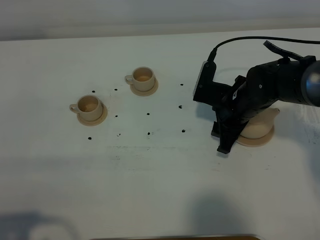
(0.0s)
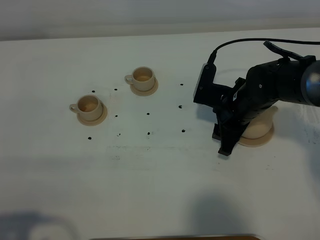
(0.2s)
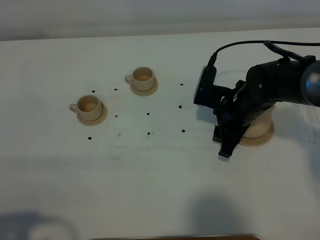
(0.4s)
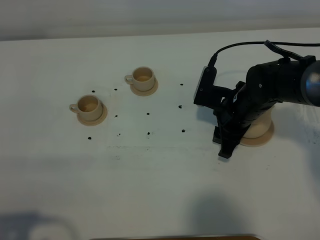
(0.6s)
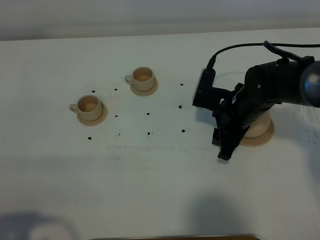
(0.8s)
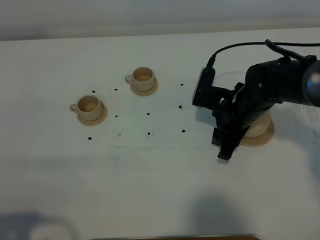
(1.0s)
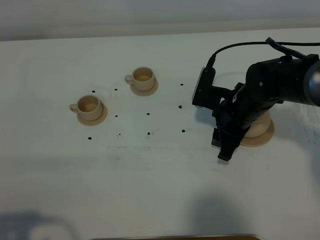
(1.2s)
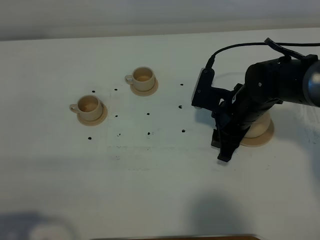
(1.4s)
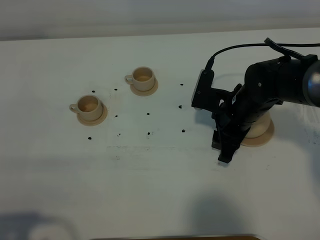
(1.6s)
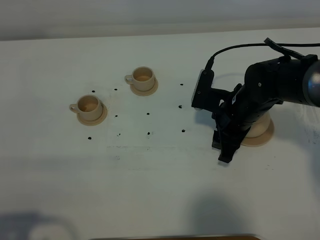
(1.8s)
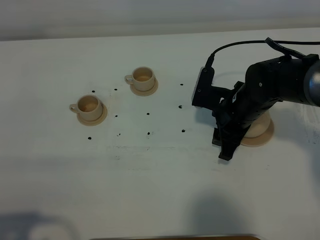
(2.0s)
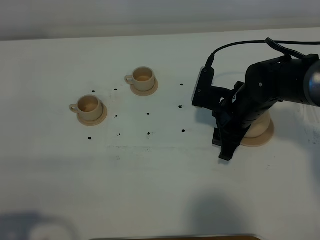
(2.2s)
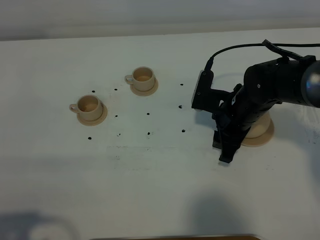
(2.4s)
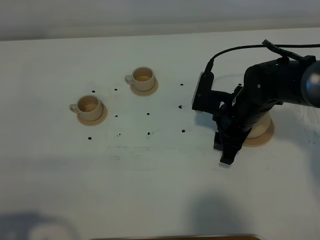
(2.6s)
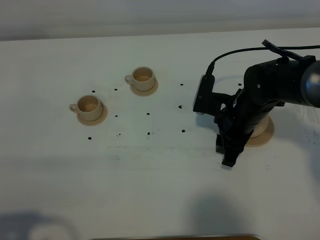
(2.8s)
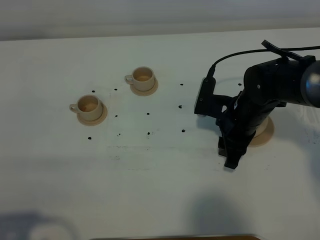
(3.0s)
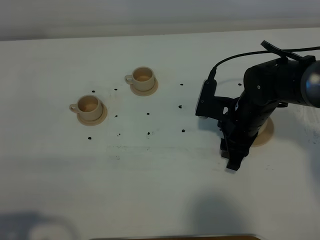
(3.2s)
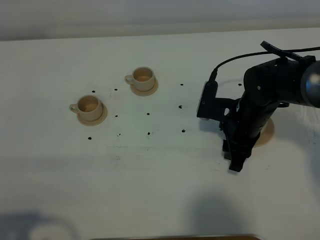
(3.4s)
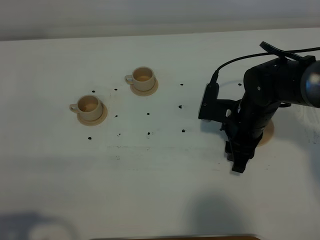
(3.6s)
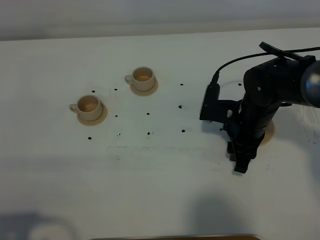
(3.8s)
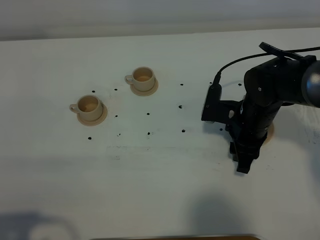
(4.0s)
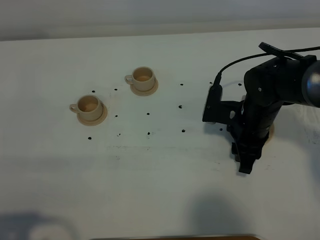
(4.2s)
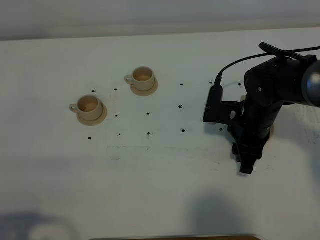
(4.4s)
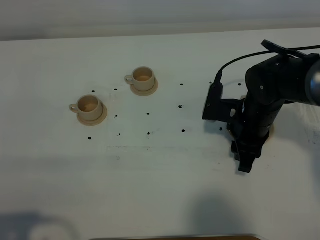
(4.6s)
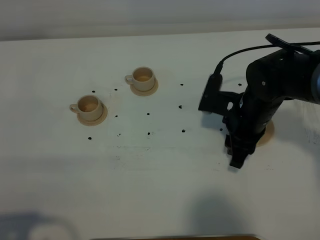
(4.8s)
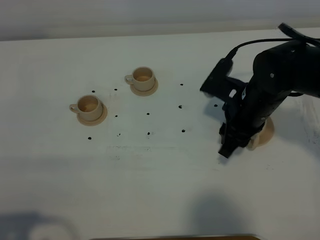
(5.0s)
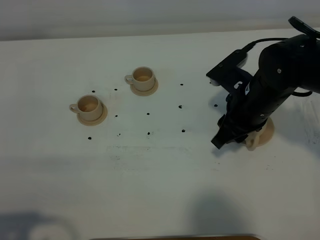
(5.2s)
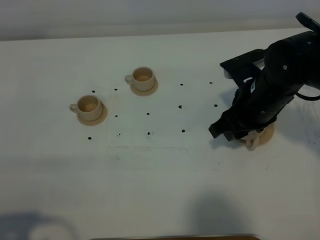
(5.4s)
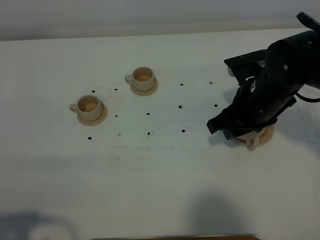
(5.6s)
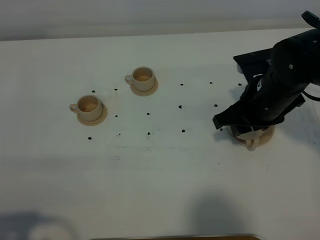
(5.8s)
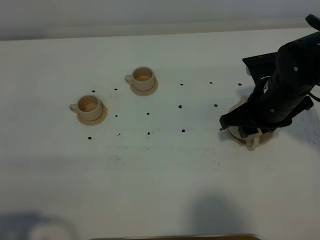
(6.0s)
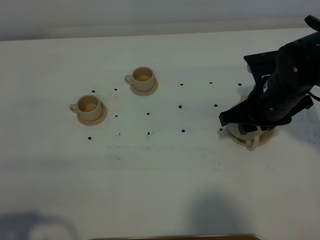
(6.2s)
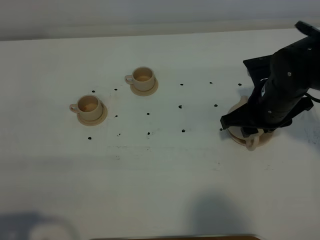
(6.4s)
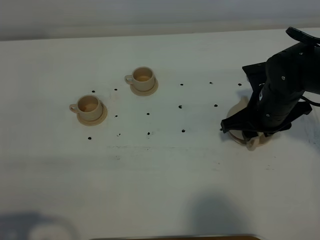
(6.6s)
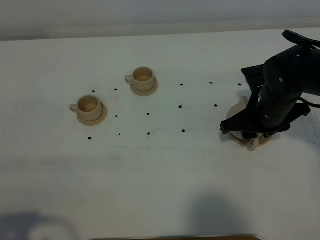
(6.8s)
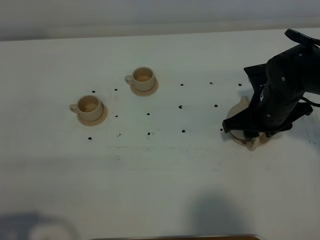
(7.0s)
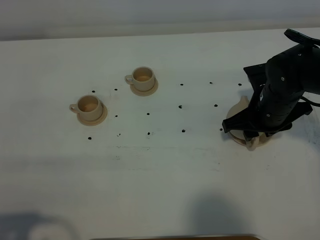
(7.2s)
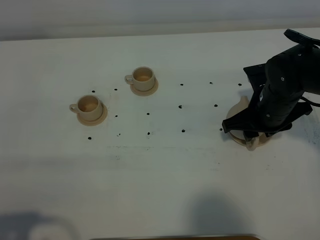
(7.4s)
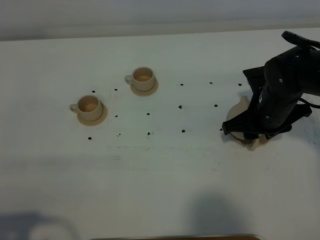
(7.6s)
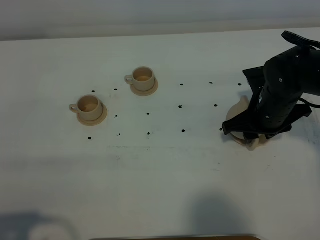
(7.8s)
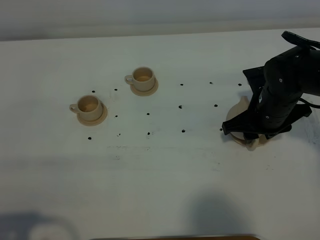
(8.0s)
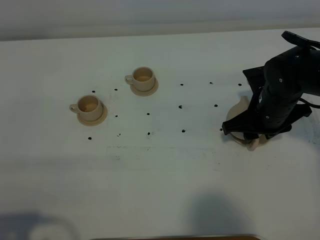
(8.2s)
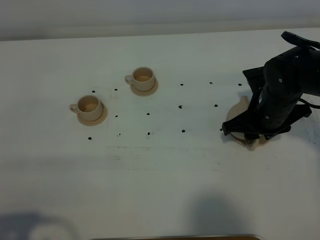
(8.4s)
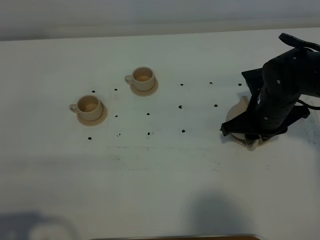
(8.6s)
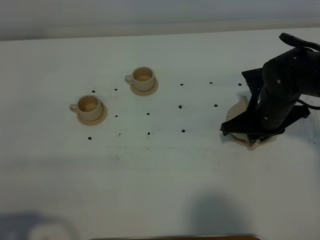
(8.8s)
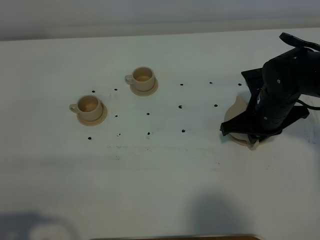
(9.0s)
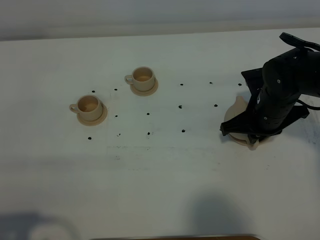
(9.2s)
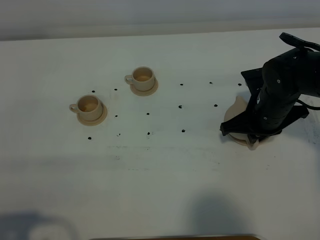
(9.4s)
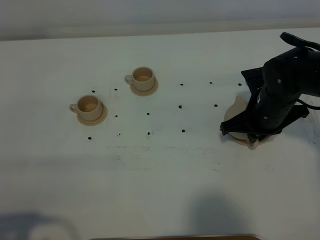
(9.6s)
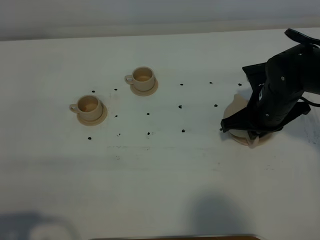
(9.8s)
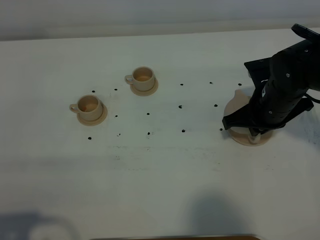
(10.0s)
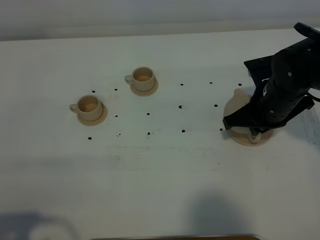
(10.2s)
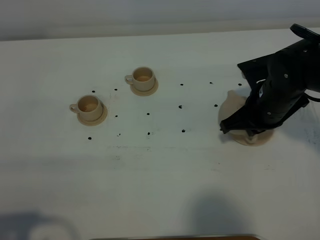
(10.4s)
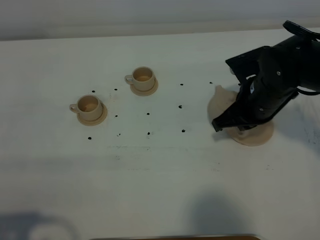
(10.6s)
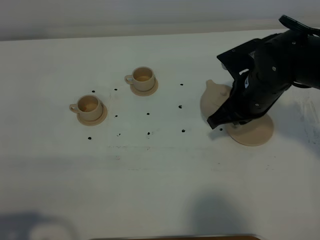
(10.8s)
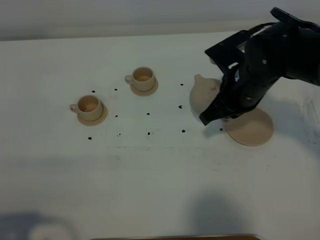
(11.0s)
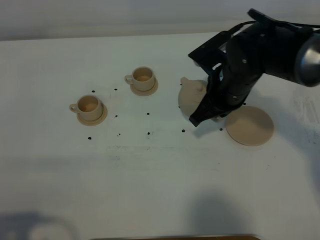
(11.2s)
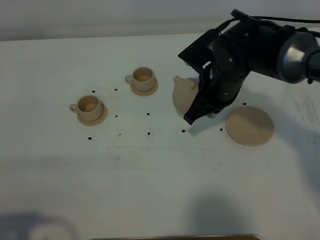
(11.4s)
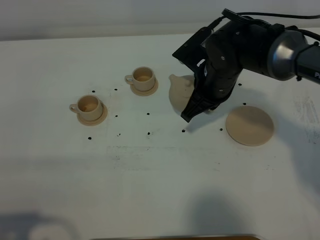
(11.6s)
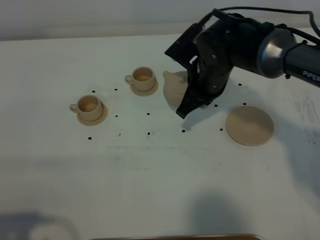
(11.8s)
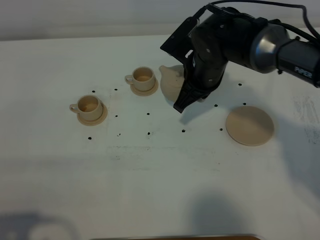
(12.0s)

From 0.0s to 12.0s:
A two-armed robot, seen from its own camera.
Task of the whole recording: grasp the brown teapot and pour the tea into the two brown teacups one by one, put the brown teapot back in its original place.
Step, from 0.0s to 10.6s: Pick up the teapot with the right gripper.
From 0.0s to 4.4s: There are only small adjustments of the grippers.
From 4.4s to 6.0s: The right gripper moves upward, roughly 5 cm.
From 6.0s to 7.6s: The grippers stay close to where they were, moving slightly.
From 7.6s to 9.0s: The right gripper closes.
From 9.0s to 10.4s: There are only small adjustments of the grippers.
From 10.4s to 12.0s: The right gripper shifts about 10 cm to the left and forward.

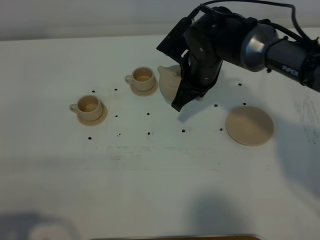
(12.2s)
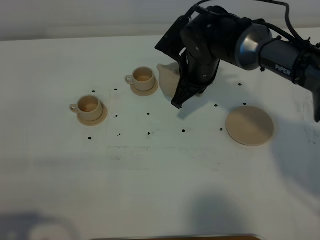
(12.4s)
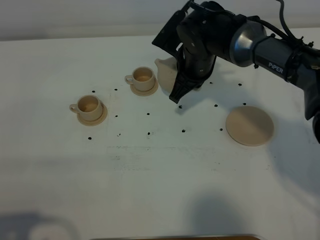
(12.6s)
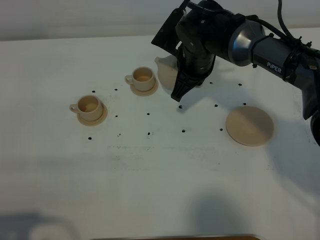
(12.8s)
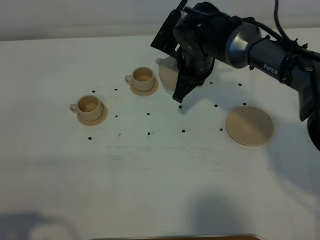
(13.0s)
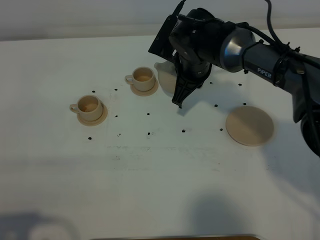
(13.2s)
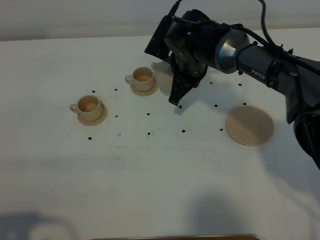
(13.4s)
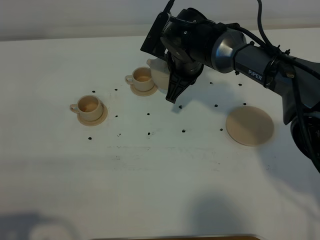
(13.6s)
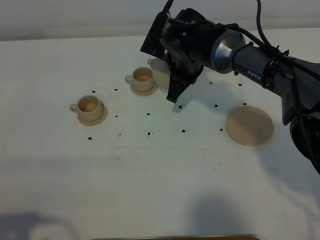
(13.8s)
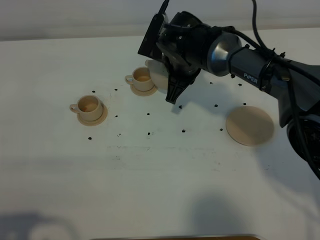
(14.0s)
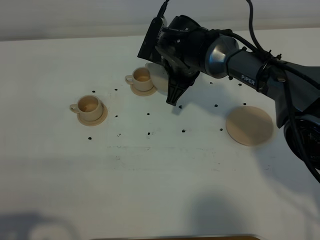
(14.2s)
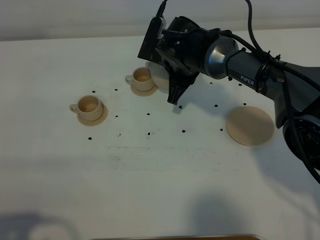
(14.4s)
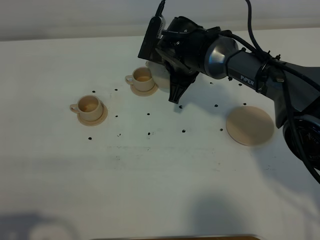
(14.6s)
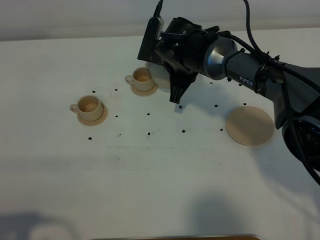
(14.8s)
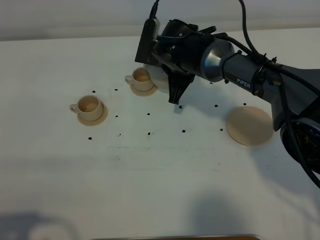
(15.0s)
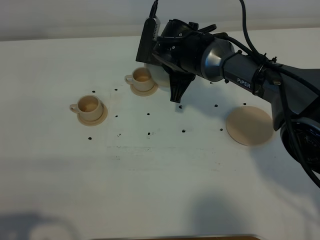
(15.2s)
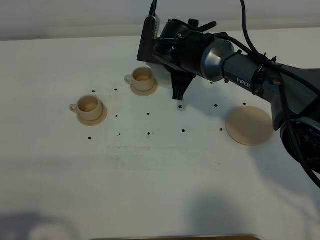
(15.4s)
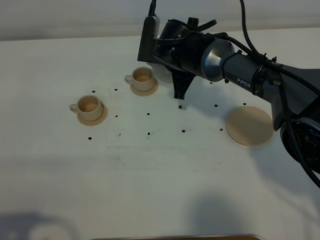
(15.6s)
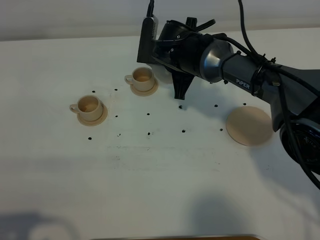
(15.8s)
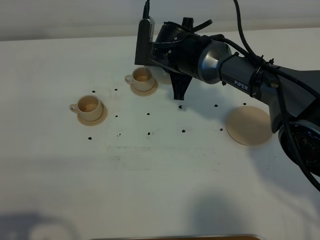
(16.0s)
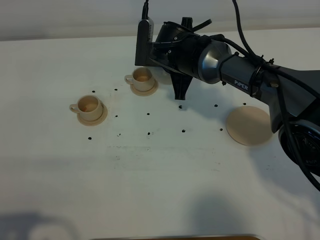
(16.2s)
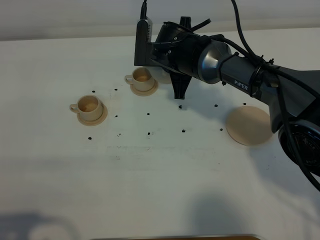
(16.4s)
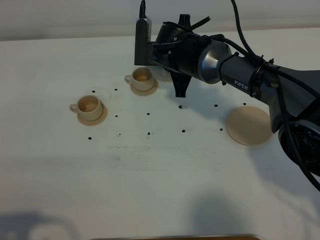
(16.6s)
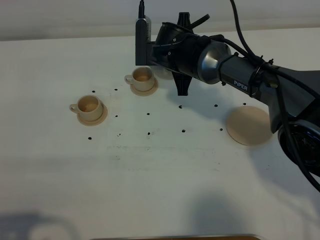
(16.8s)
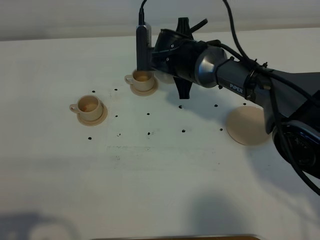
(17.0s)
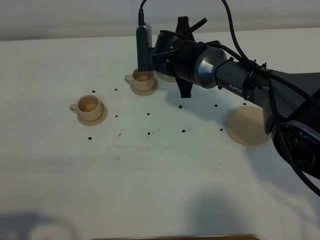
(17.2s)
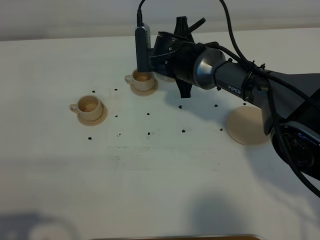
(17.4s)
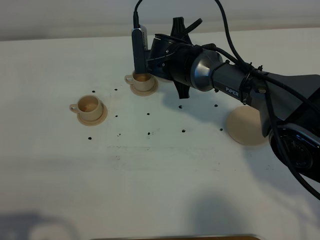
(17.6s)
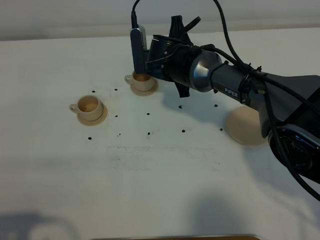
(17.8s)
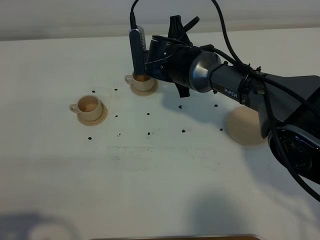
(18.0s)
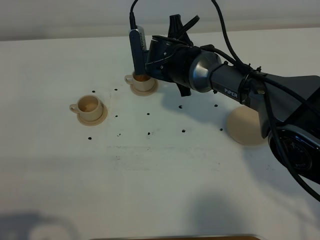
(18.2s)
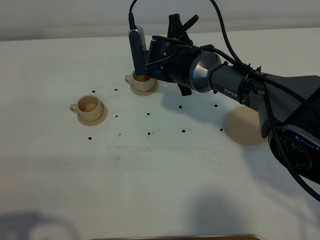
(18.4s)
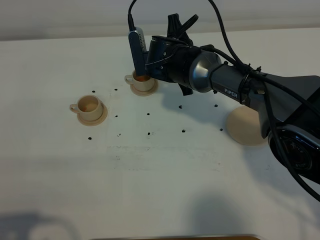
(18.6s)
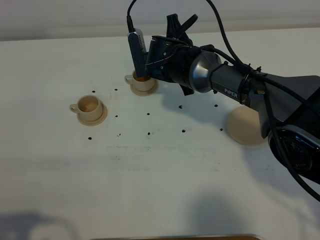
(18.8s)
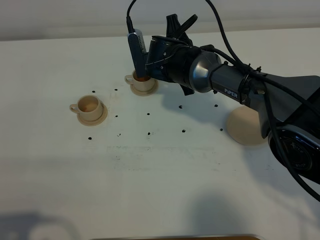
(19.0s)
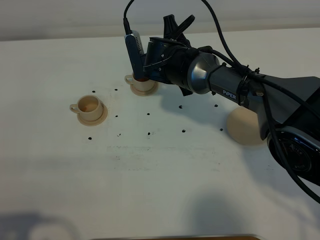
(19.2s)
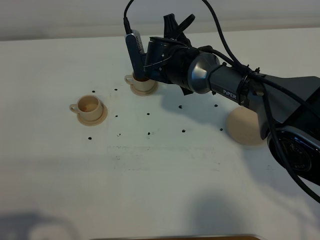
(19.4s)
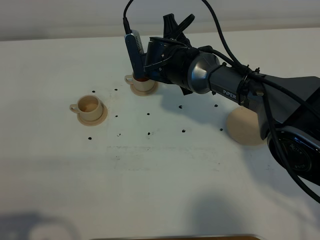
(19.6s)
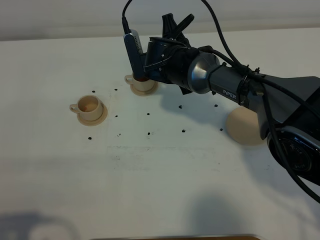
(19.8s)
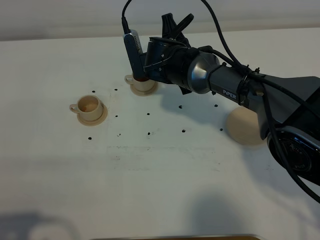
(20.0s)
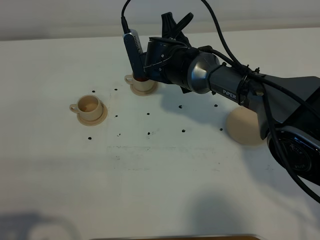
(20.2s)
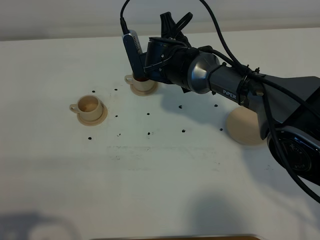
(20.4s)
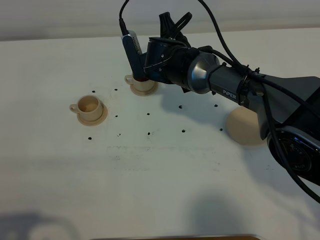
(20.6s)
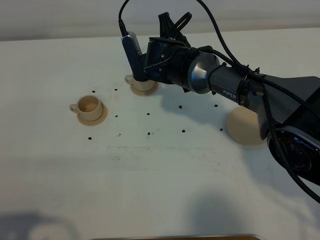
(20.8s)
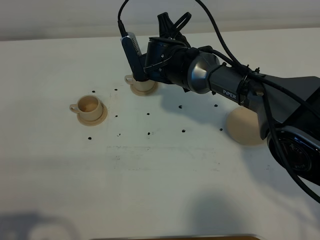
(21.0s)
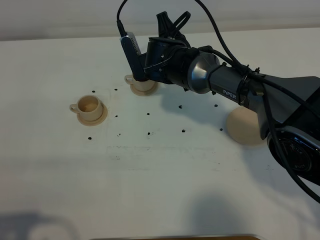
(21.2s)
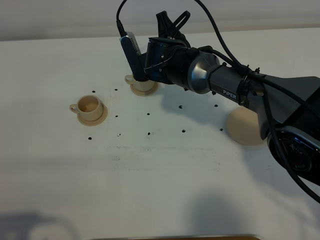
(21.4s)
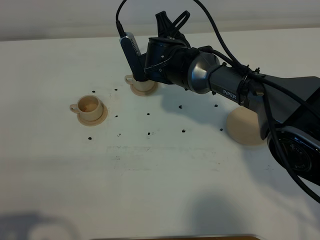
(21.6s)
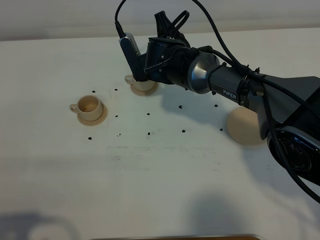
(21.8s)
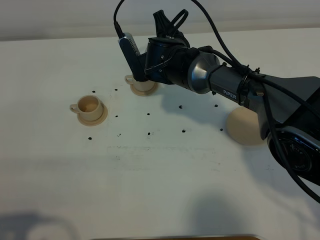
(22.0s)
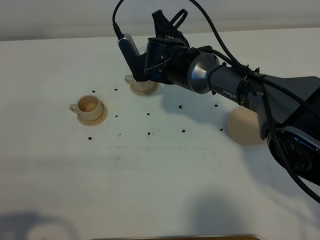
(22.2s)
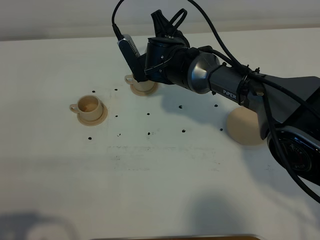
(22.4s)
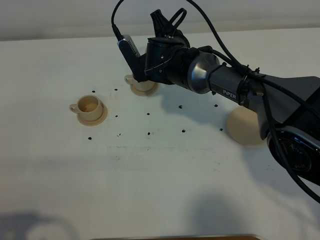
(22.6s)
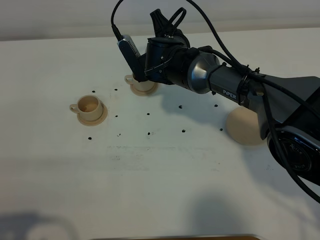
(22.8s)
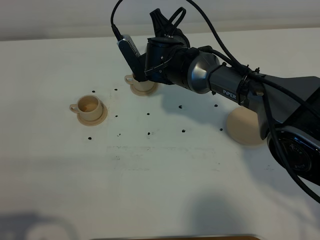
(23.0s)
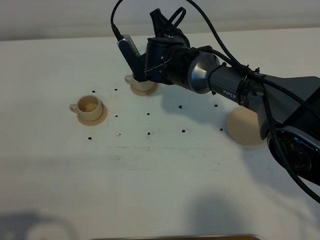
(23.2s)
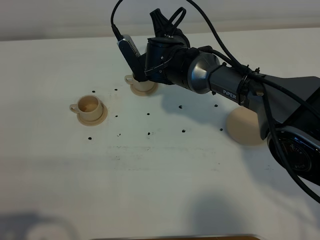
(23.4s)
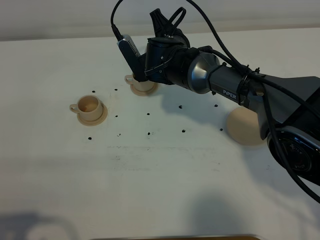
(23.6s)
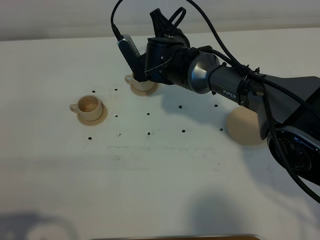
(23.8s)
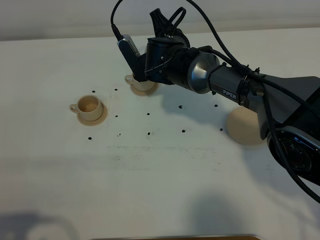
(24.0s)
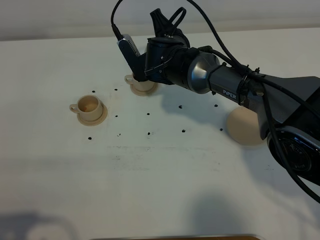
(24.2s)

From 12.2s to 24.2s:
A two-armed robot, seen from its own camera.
Task of the whole recording: grasp the brown teapot and pour the tea into the two brown teacups one by one, put the brown teapot back in its original place.
From 12.2s to 13.8s: The grippers stay close to where they were, moving slightly.
From 13.8s to 15.2s: The grippers move only a little.
From 15.2s to 16.6s: The grippers move only a little.
From 16.6s to 19.8s: The grippers make only small movements.
From 19.8s to 22.6s: The grippers move only a little.
From 22.6s to 24.2s: The two grippers keep their place.
